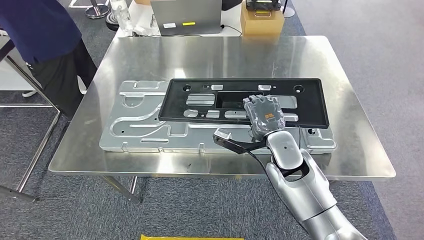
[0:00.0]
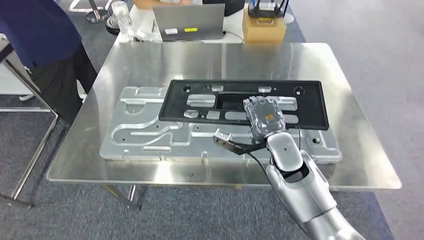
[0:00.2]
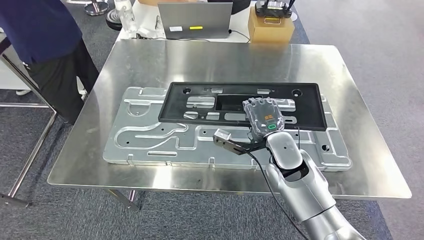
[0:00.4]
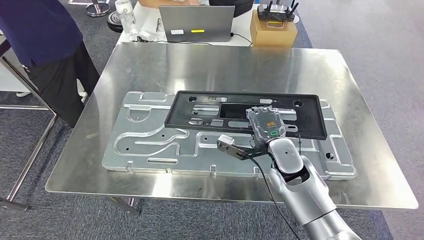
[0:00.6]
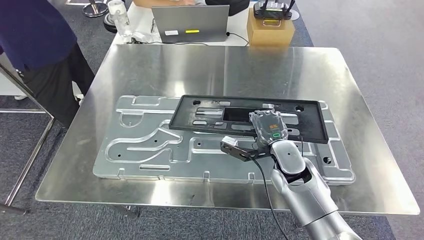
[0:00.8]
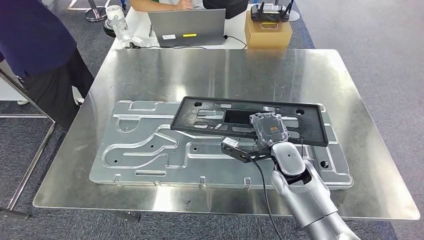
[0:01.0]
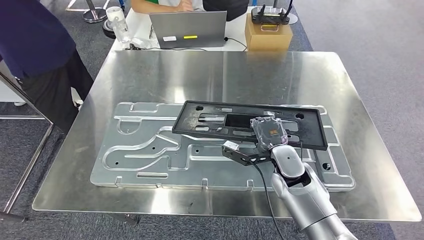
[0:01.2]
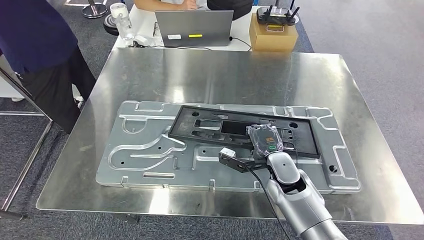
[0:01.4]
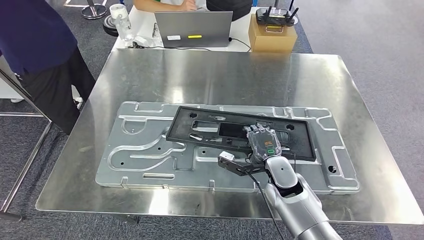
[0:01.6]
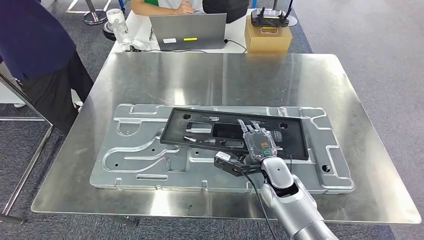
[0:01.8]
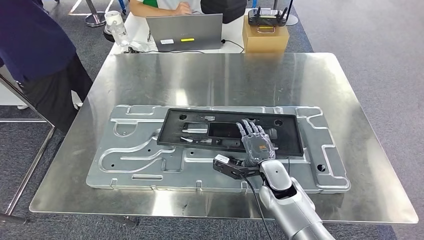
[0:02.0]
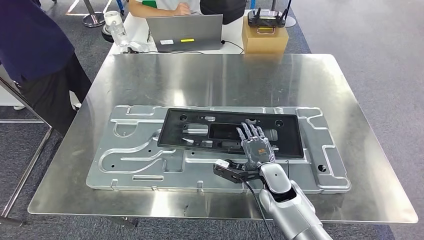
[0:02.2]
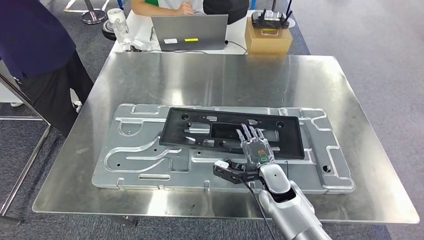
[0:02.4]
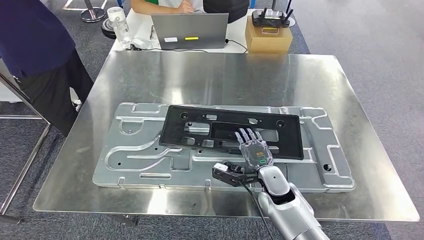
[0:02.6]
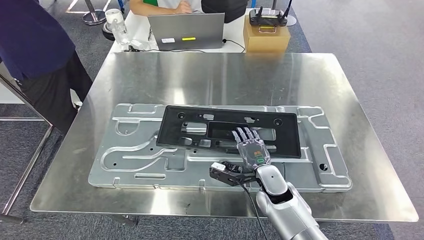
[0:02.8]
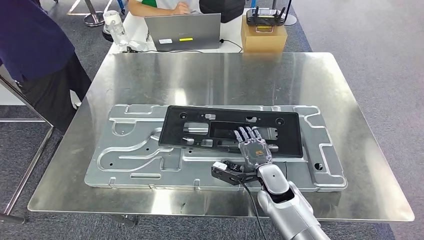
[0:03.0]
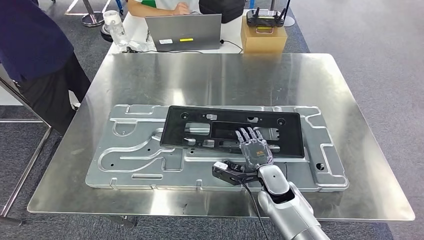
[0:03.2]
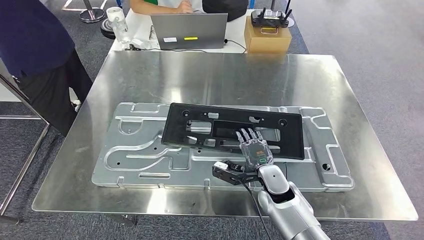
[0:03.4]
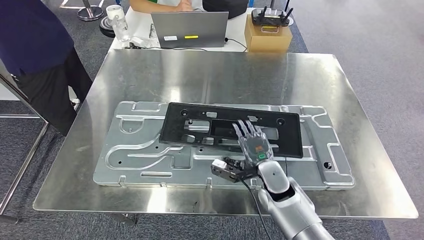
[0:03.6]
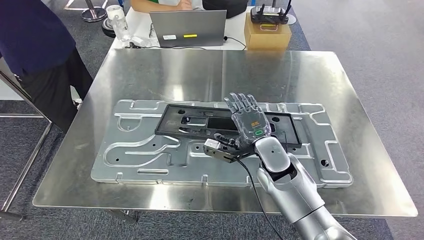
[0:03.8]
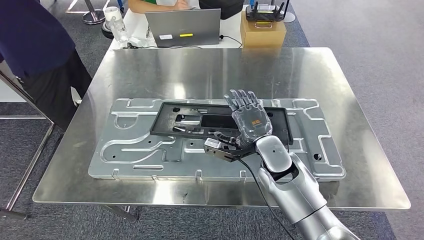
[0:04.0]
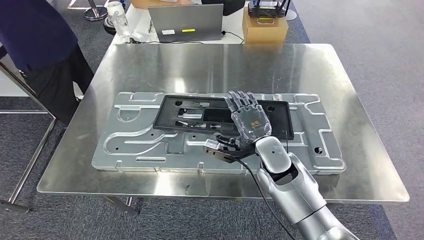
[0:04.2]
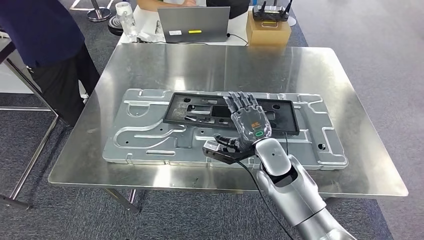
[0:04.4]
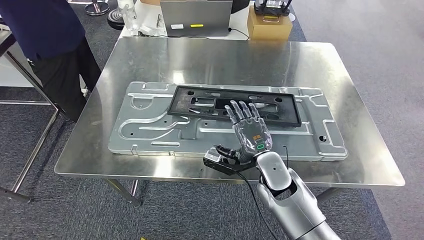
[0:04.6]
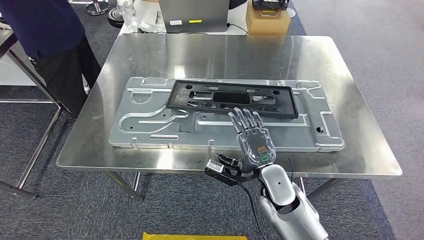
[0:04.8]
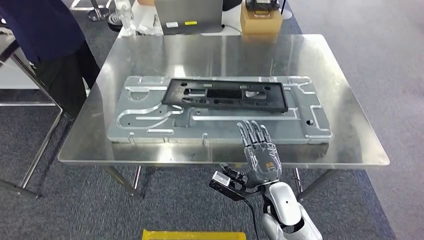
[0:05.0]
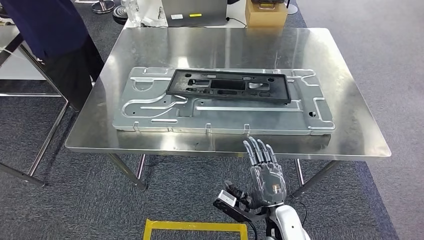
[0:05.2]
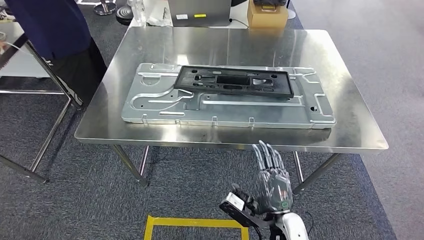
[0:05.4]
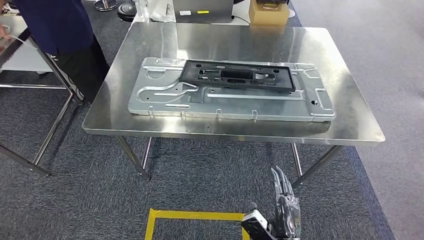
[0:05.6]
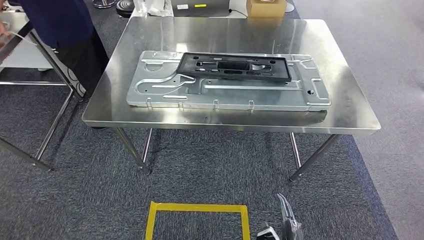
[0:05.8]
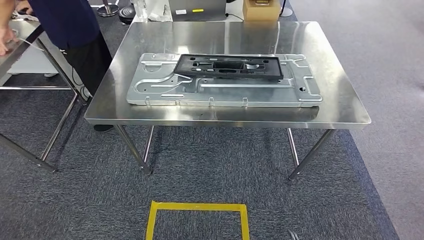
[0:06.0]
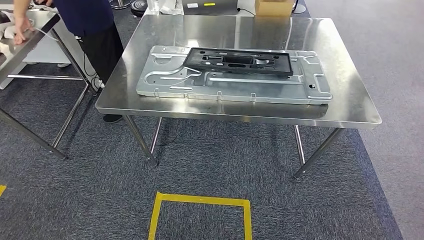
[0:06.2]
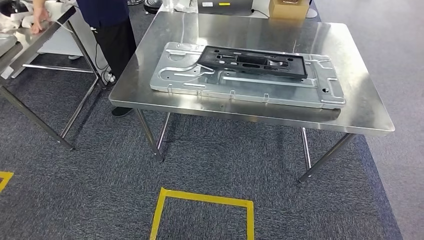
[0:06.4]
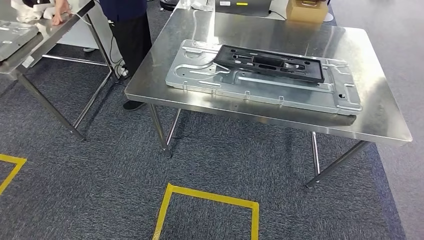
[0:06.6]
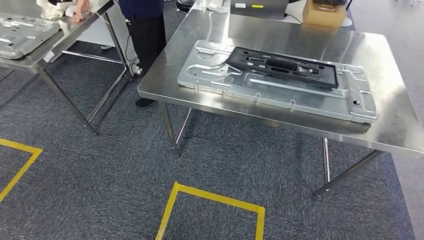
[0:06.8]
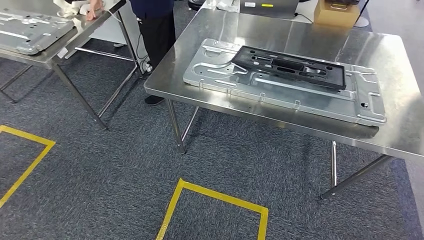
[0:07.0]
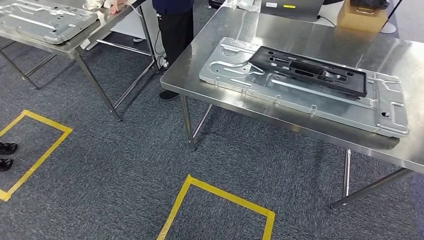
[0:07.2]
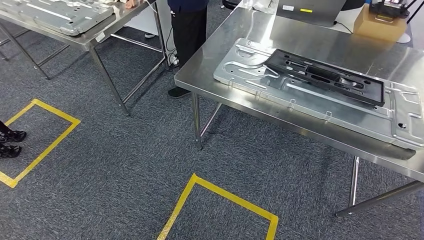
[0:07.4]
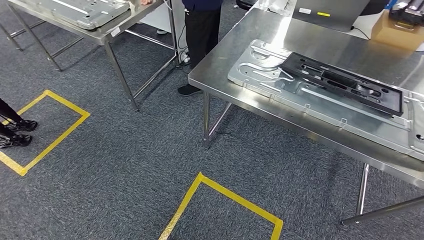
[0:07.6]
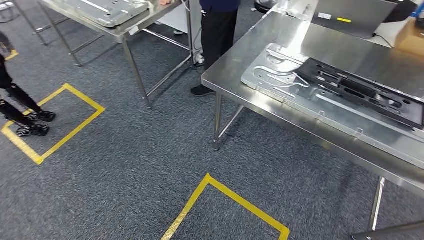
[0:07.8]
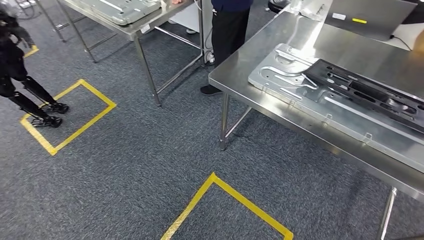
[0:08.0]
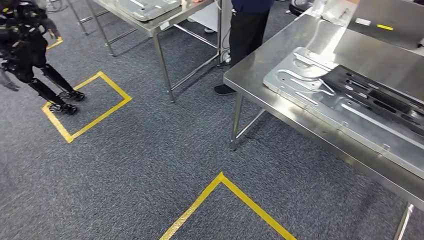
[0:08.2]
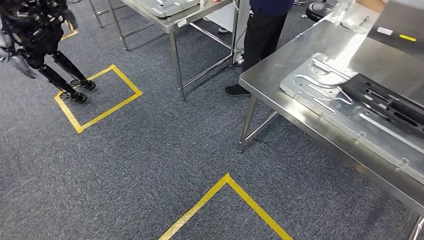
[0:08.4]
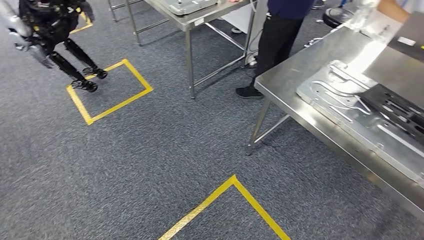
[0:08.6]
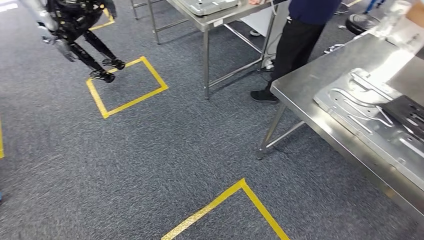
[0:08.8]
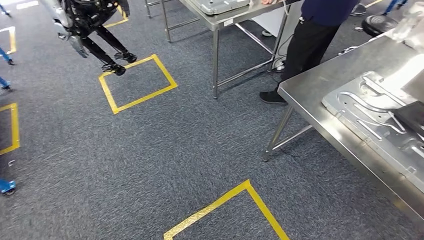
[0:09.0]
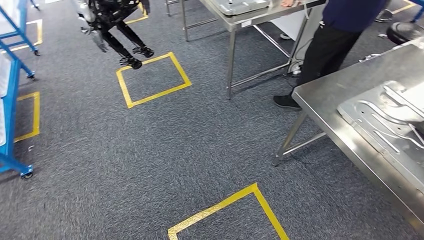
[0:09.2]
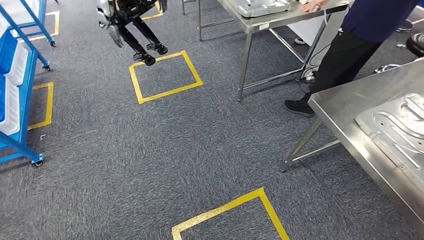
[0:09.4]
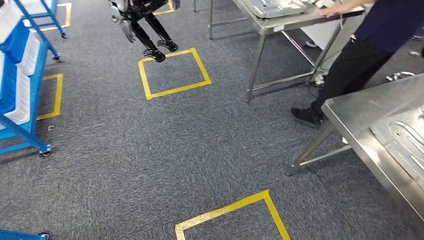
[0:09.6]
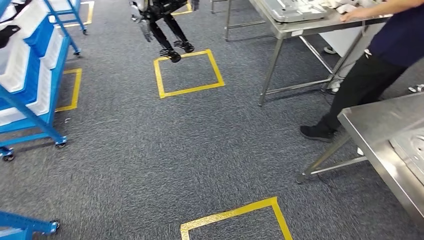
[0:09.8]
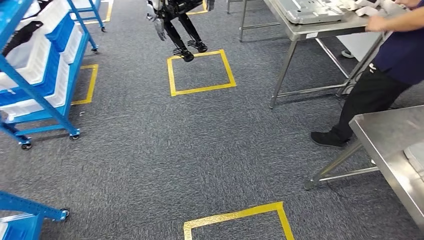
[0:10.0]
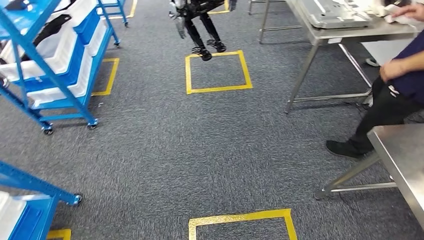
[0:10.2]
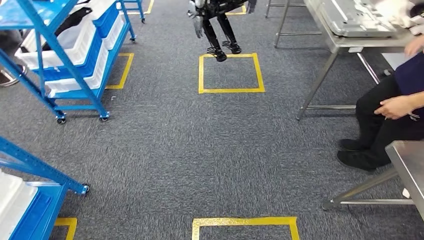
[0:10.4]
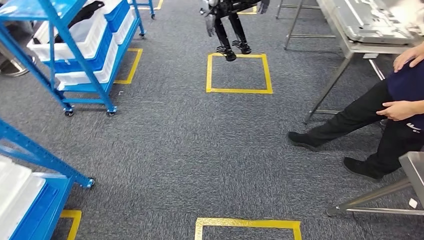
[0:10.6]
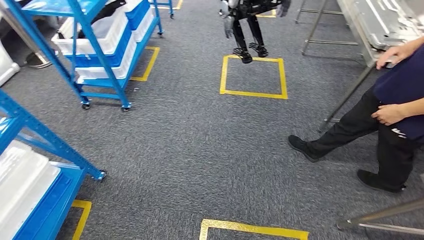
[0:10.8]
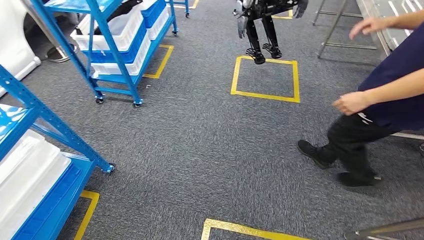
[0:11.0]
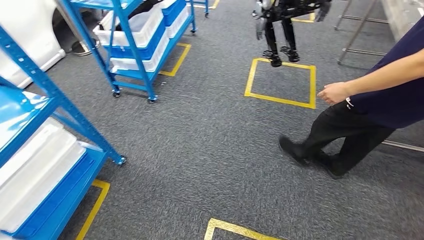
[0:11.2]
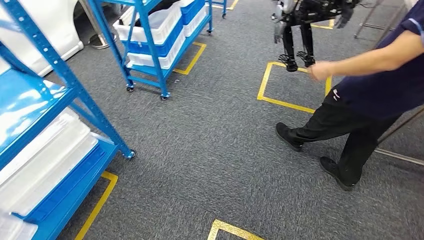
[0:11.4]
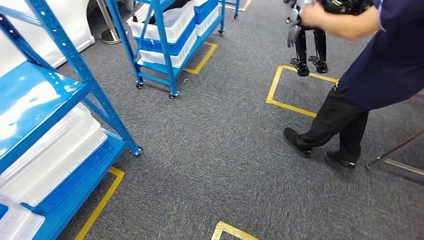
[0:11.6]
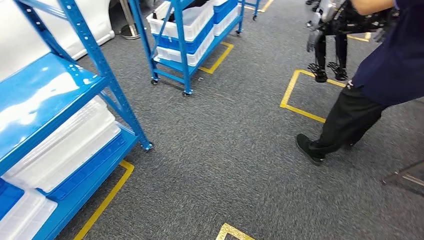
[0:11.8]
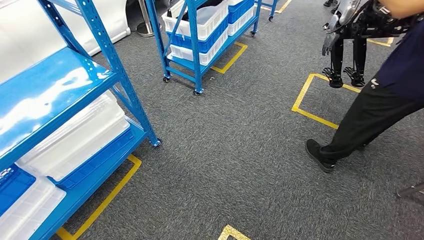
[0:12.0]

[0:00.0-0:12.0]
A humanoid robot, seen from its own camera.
Step, 0:00.6 to 0:04.4: Insert the large material into the corresponding slot on the workbench.
Step, 0:06.8 to 0:10.0: Move to the initial position of the shelf.
